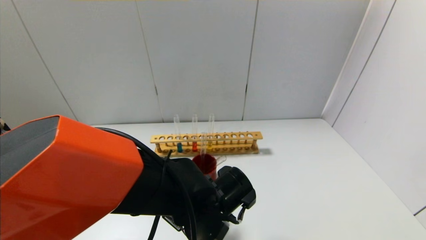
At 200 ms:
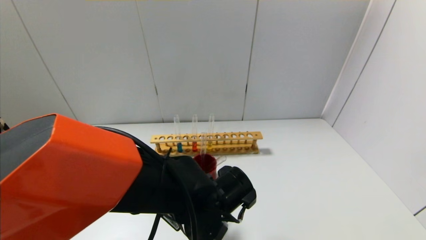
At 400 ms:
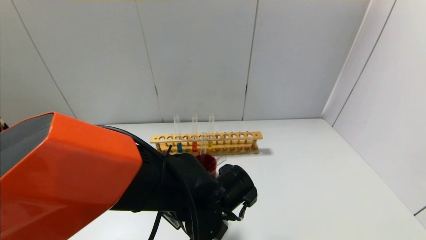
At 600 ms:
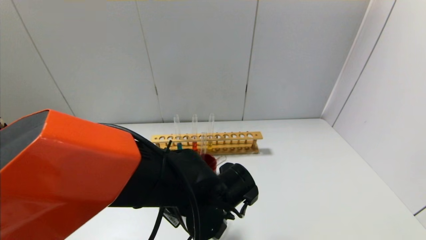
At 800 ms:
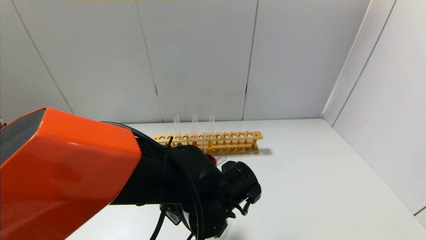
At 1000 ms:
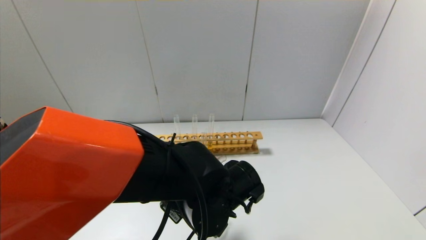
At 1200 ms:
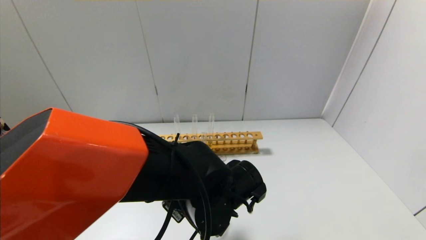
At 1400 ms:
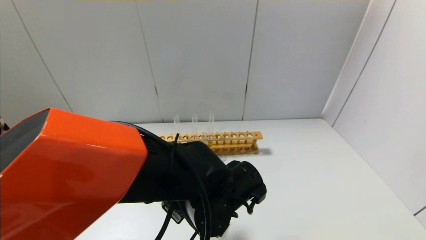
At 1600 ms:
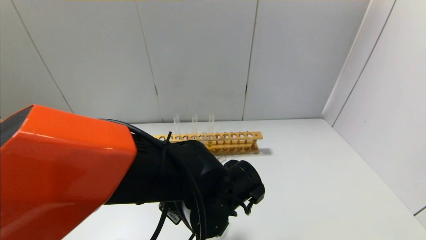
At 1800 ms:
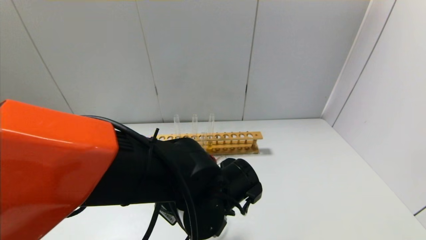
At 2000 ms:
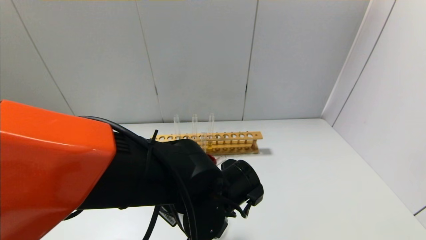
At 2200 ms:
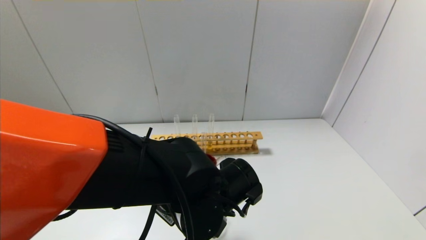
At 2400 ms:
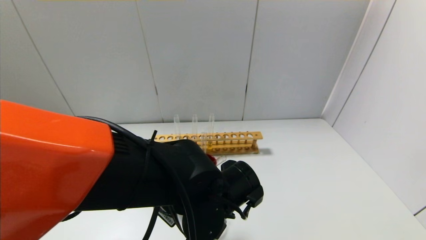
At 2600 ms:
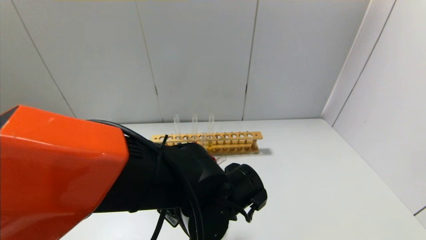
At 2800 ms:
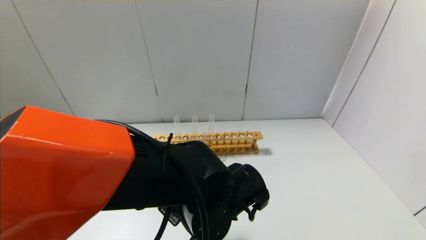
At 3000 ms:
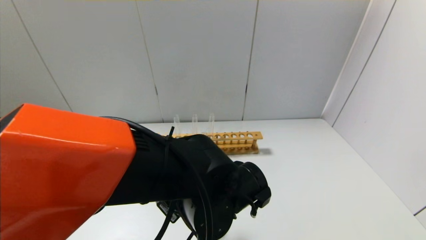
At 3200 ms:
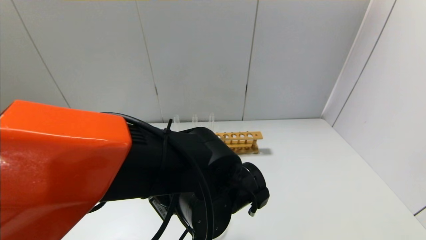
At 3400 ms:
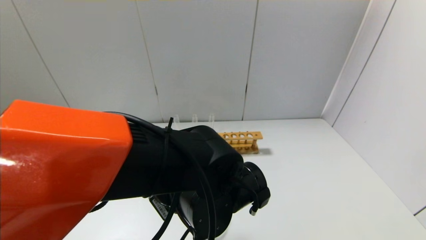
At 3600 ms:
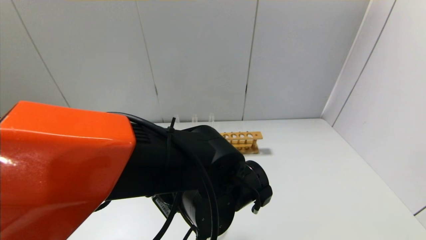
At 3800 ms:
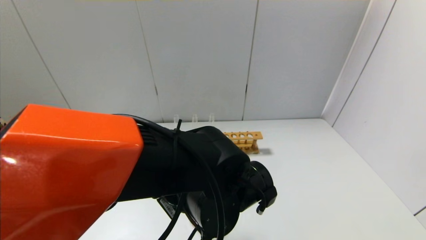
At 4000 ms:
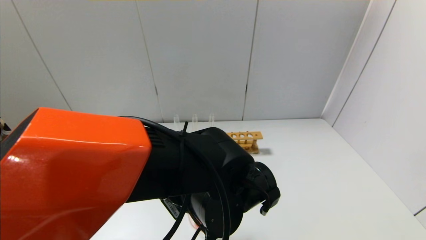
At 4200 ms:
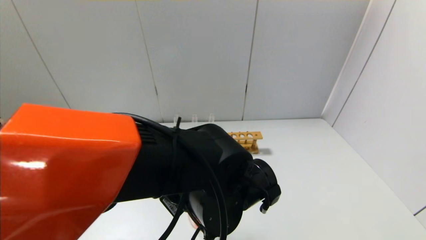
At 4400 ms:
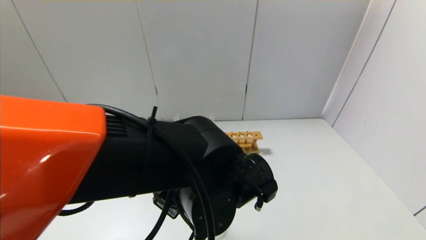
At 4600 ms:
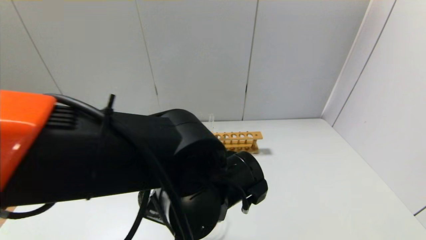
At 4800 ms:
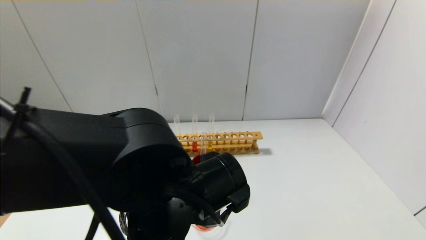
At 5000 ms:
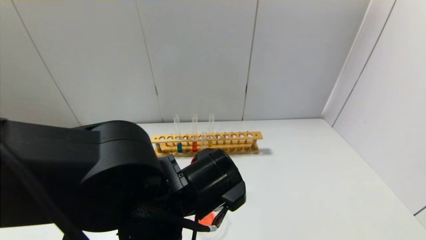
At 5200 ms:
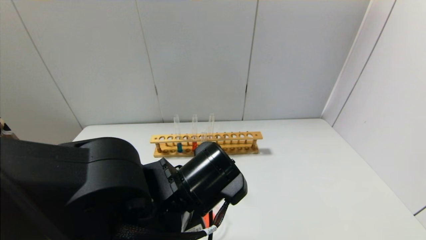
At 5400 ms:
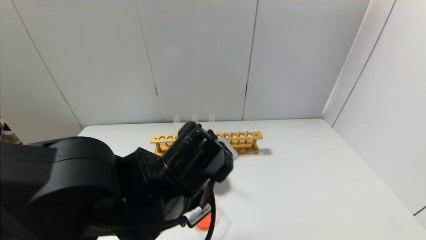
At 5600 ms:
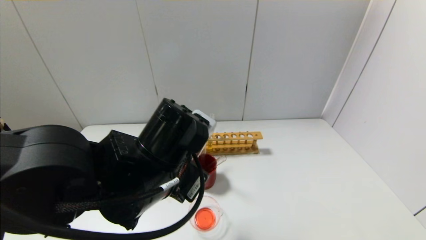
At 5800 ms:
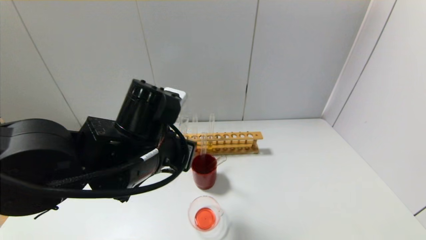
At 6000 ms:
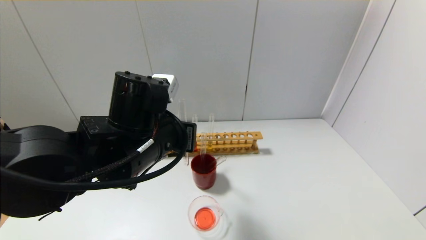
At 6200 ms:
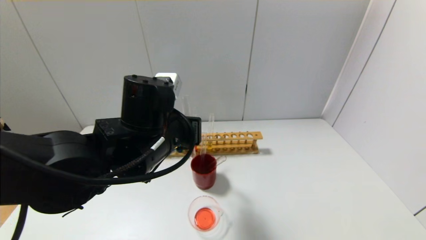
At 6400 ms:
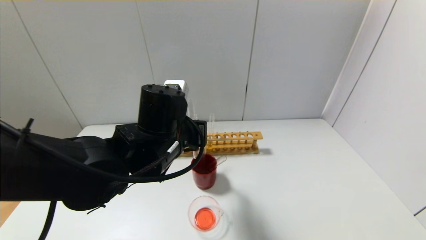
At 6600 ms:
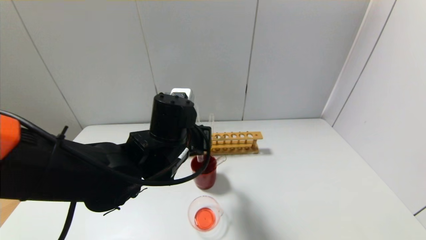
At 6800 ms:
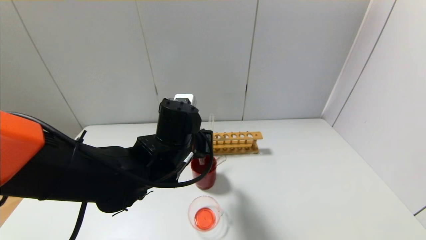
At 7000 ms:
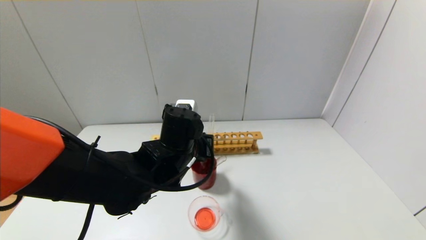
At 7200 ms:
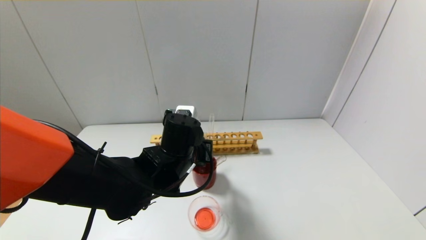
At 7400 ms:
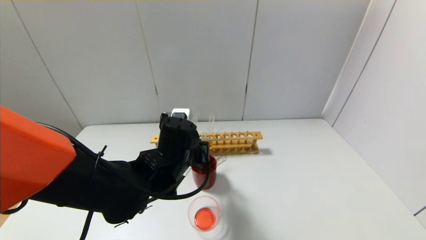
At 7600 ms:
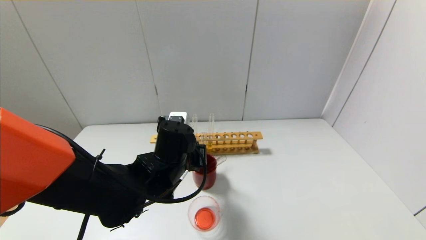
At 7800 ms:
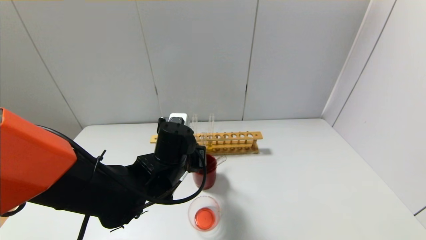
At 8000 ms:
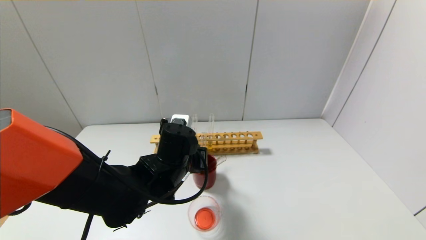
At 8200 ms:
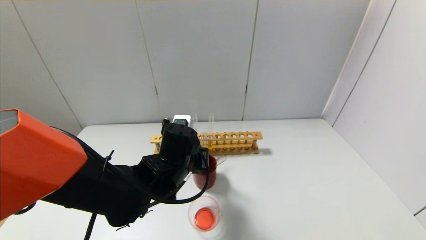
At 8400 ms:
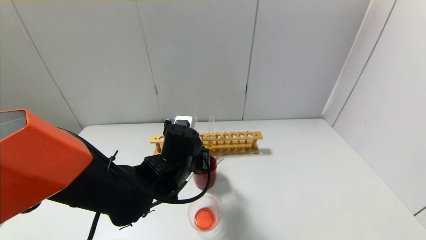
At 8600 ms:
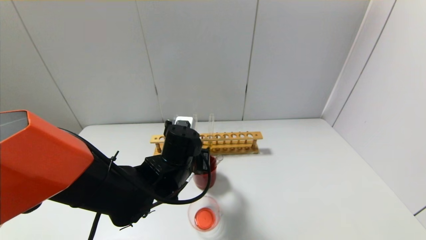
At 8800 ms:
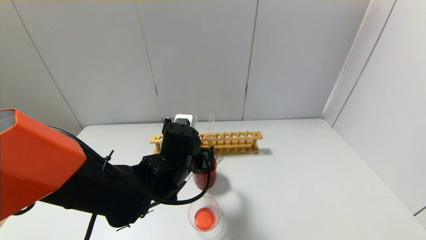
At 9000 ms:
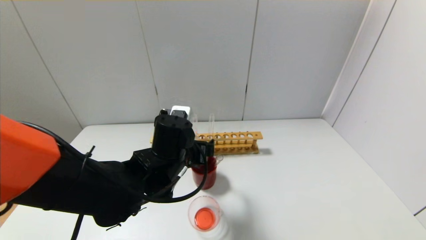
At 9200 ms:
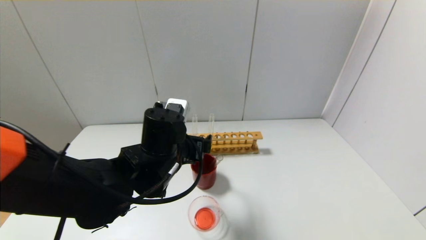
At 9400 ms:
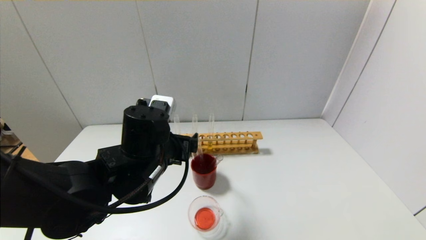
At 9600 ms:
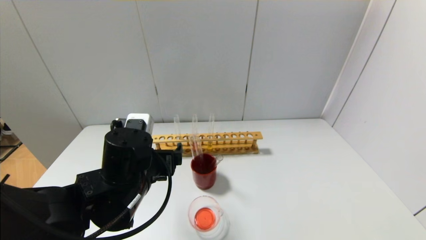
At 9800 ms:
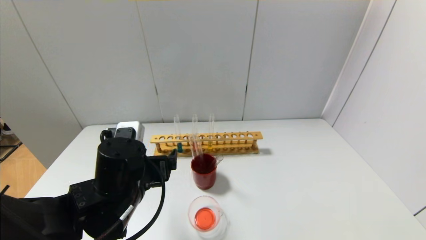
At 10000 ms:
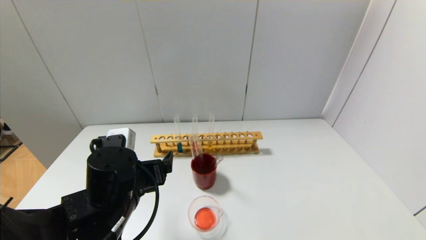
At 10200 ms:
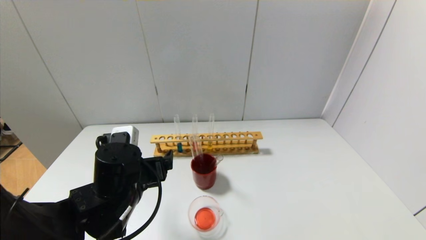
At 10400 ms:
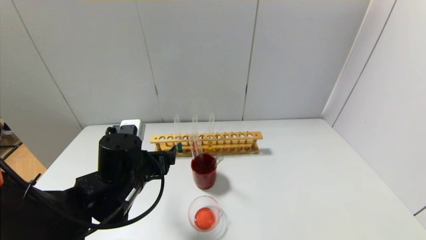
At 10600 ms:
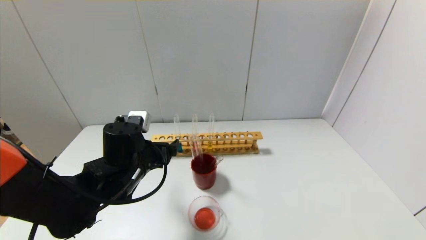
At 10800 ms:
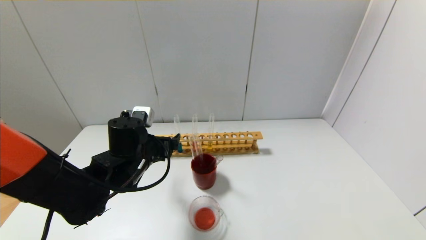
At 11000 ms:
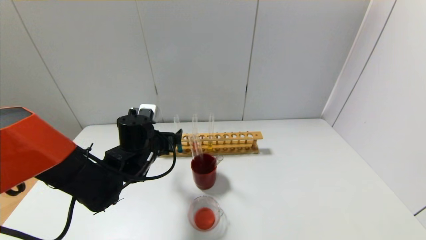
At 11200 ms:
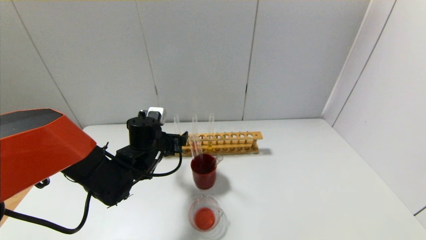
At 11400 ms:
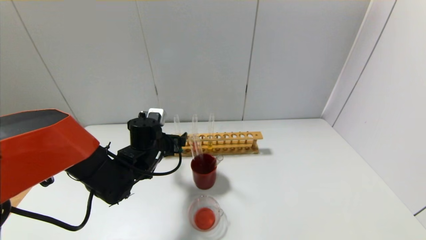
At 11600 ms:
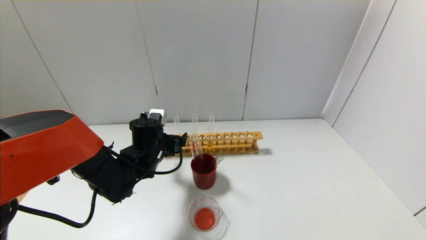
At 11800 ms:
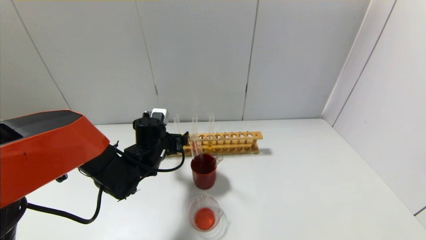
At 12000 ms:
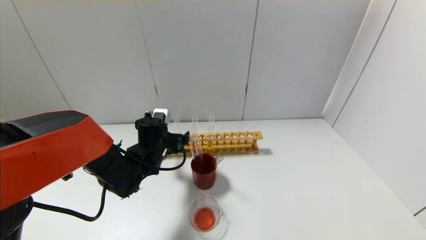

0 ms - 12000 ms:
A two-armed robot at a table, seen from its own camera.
Step, 0 ms - 4400 ms: Pour the red reagent into the graduated cylinder with the left gripper.
Step, 4600 ms - 8400 ms: Place the test tube into the brown cup with the left gripper.
0 ms - 3000 ms: The grippers make only small movements.
3000 ms - 4400 ms: The grippers stay close to where they were, moving slightly.
4400 ms - 6000 ms: The left gripper heads to the left and upward, covering some 10 cm.
6000 ms - 7600 ms: The left gripper shifts about 10 cm downward.
7600 ms - 9000 ms: The left gripper opens its fingers.
9000 ms - 10400 ms: The left gripper moves to the left, some 10 cm.
10400 ms - 12000 ms: The left gripper heads forward, covering some 15 cm.

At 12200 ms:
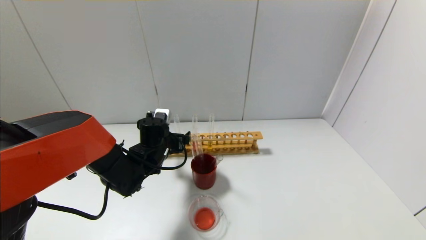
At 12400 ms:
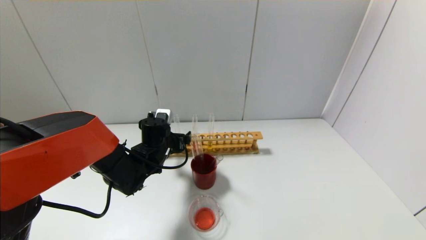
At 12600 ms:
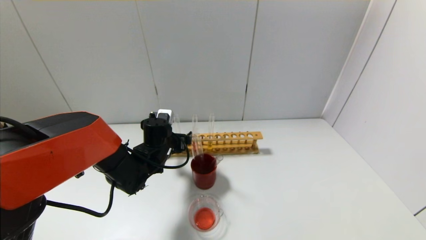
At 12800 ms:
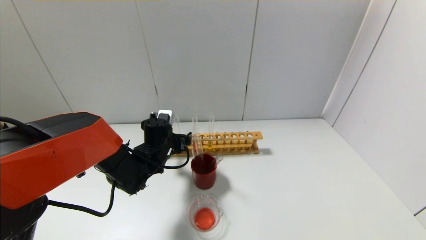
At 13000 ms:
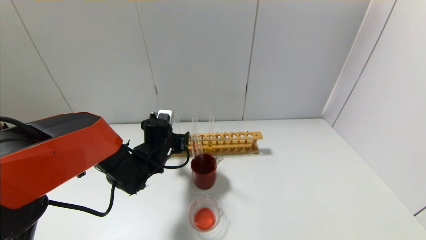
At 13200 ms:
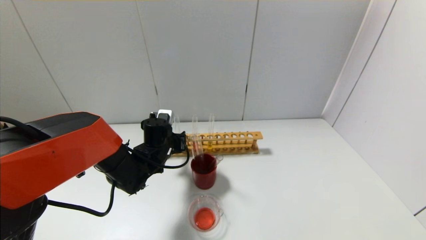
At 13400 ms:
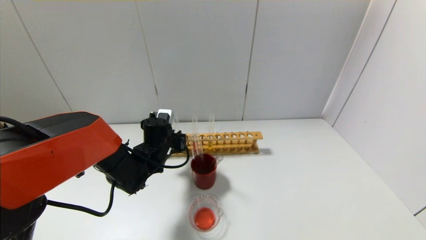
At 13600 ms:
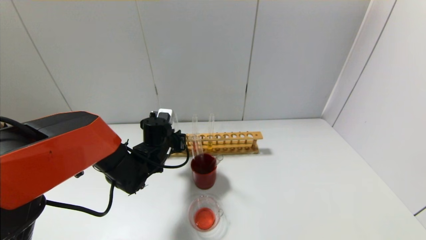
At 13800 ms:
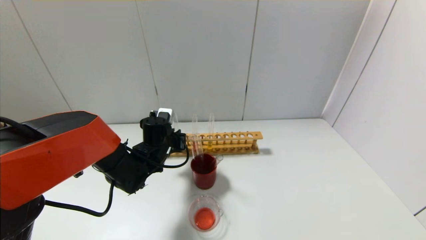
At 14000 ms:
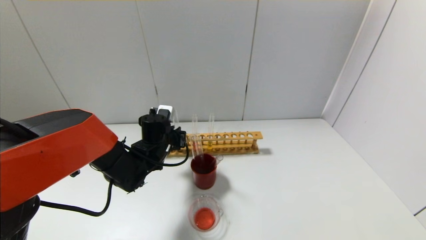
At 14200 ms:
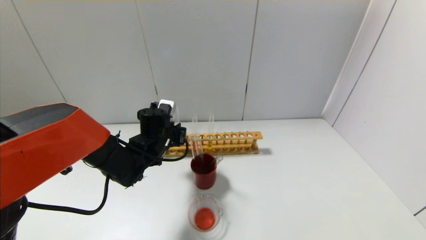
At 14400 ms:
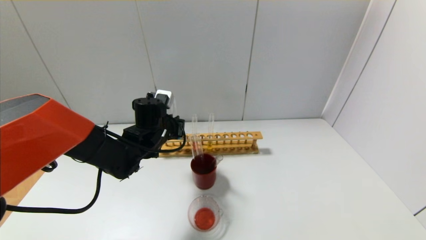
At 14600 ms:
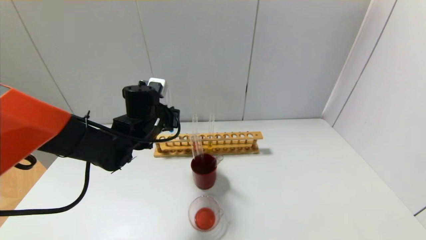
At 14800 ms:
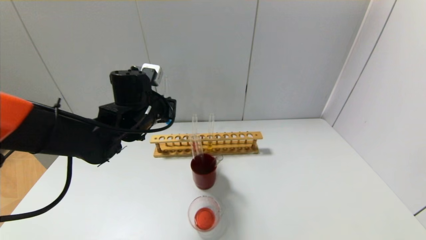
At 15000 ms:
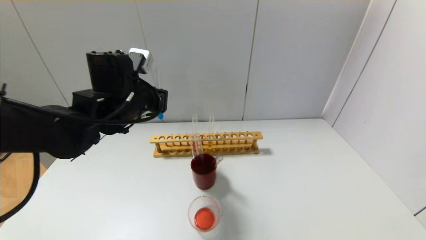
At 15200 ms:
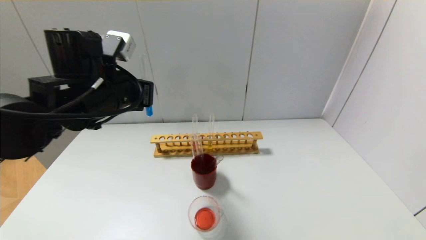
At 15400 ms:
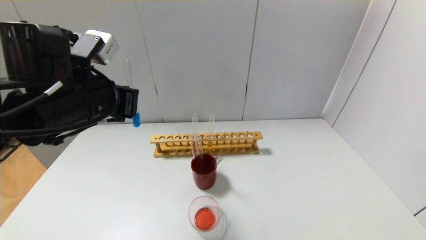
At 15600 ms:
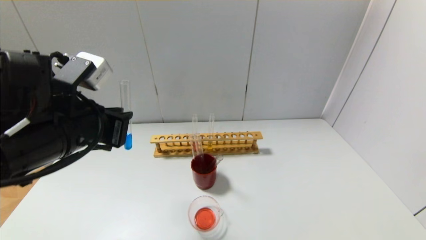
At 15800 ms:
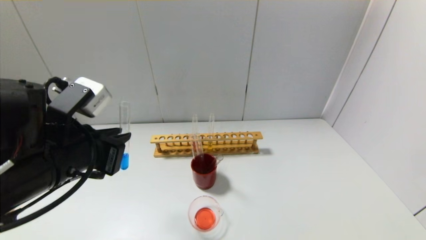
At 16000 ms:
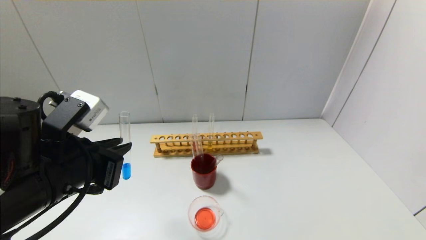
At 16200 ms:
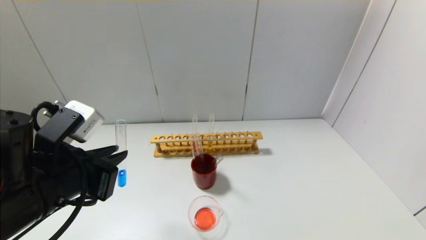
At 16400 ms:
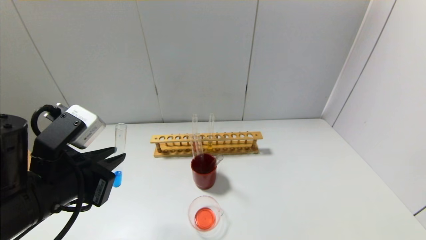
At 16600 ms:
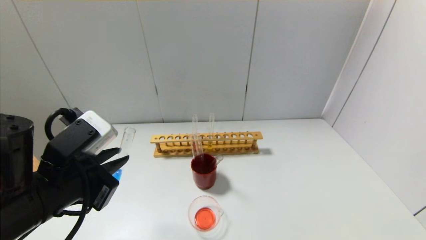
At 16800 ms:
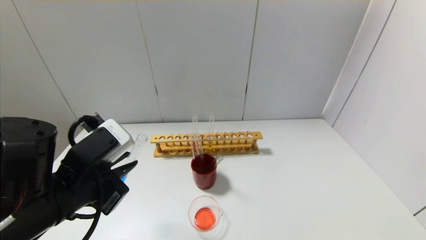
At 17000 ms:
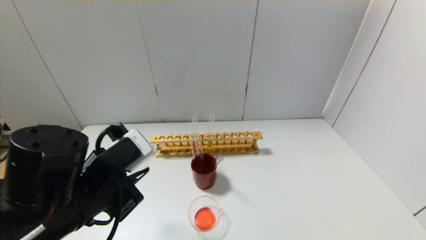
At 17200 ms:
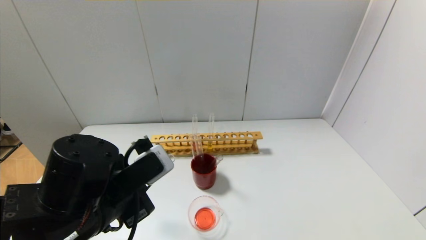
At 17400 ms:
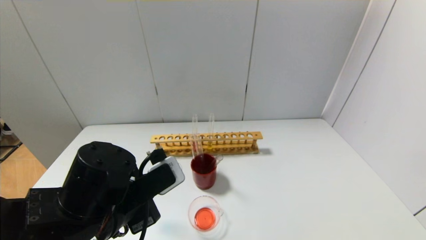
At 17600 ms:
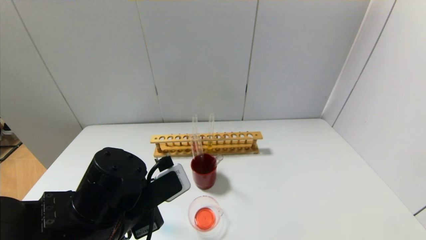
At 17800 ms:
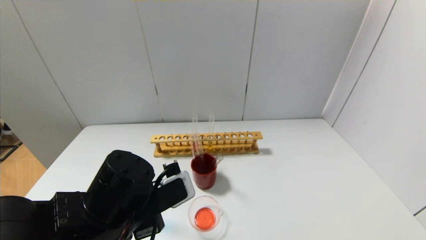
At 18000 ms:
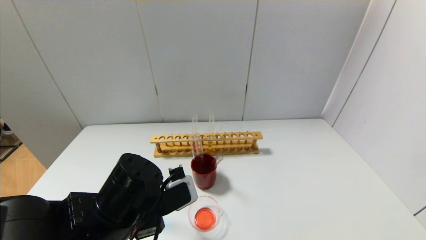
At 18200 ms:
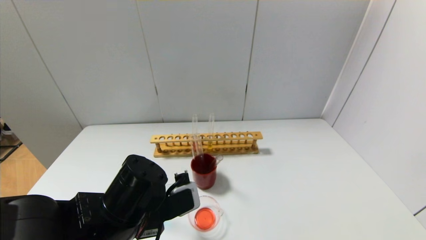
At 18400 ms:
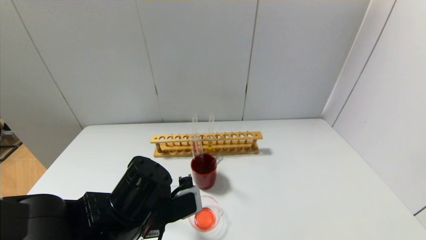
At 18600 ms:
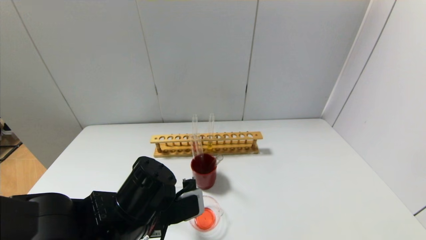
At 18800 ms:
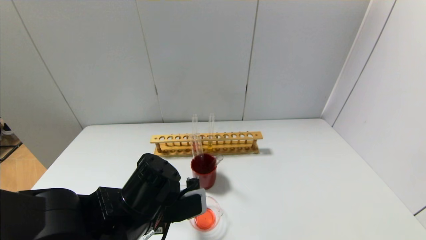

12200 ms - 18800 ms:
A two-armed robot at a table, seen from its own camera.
12200 ms - 13800 ms: The left gripper closes its fingers.
13800 ms - 15400 ms: The left gripper heads upward and backward, covering about 25 cm.
15400 ms - 17200 ms: The left gripper moves downward and backward, roughly 10 cm.
17200 ms - 18800 ms: The left gripper ends up some 5 cm from where it was.
